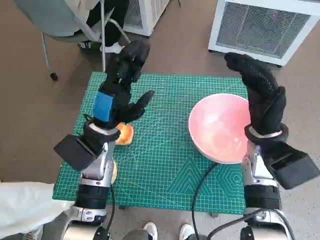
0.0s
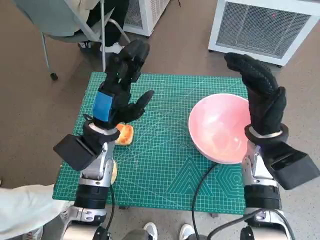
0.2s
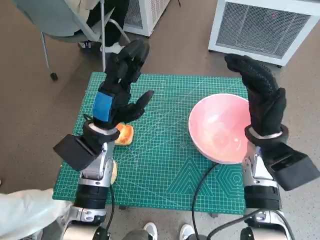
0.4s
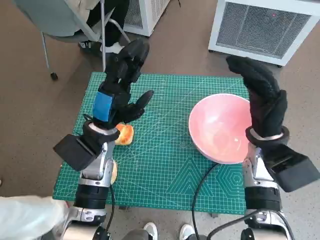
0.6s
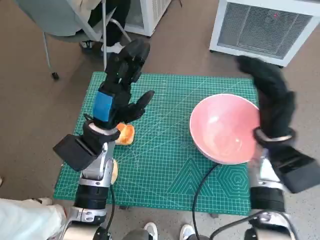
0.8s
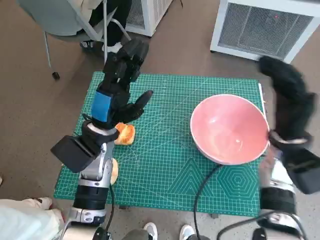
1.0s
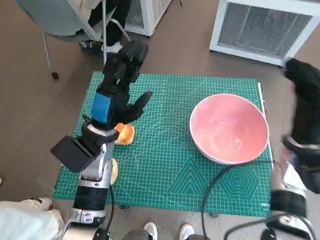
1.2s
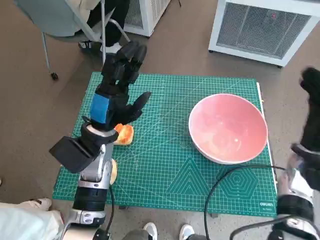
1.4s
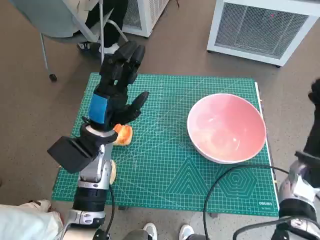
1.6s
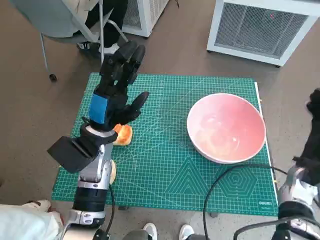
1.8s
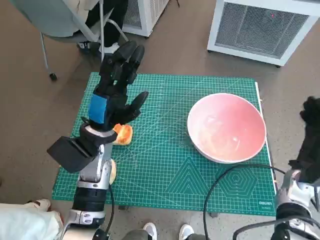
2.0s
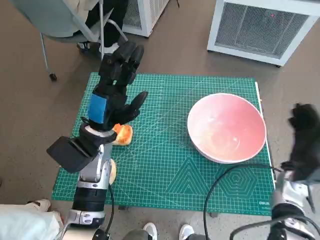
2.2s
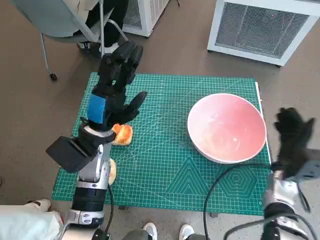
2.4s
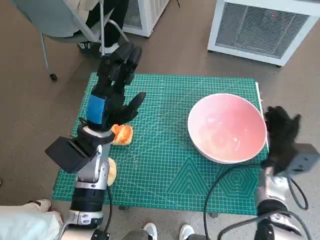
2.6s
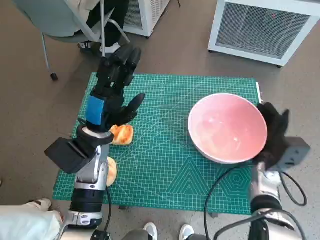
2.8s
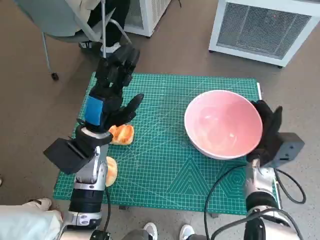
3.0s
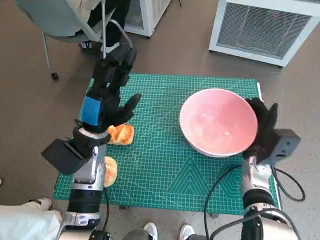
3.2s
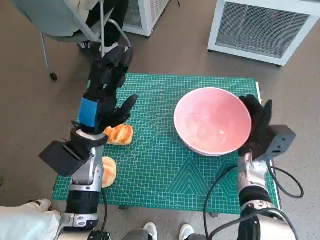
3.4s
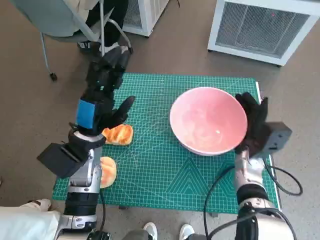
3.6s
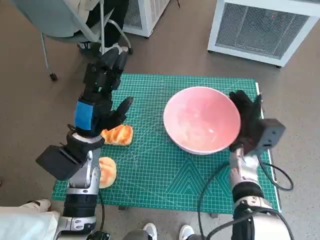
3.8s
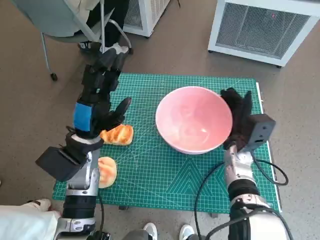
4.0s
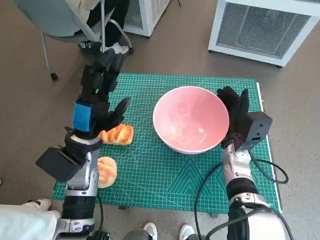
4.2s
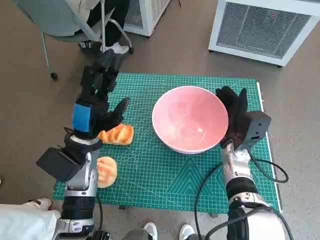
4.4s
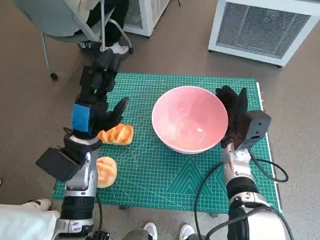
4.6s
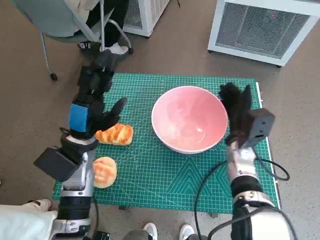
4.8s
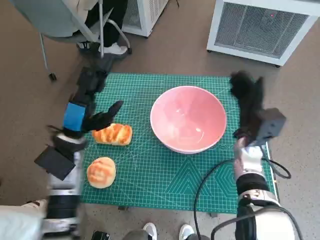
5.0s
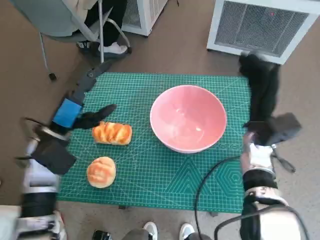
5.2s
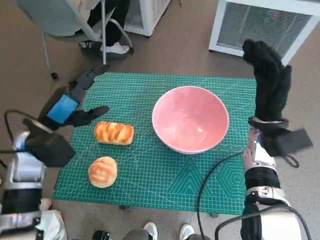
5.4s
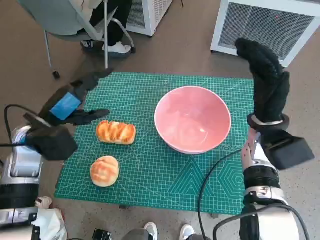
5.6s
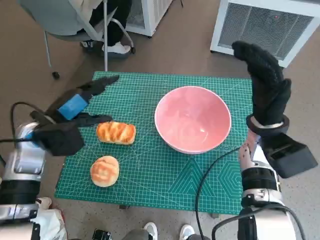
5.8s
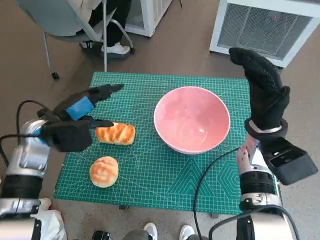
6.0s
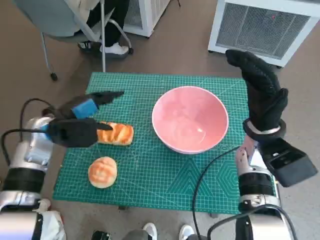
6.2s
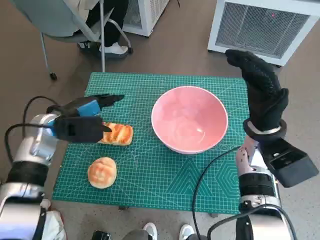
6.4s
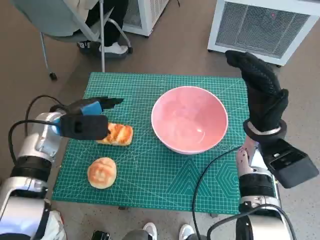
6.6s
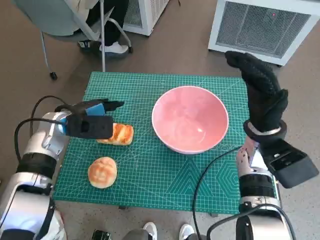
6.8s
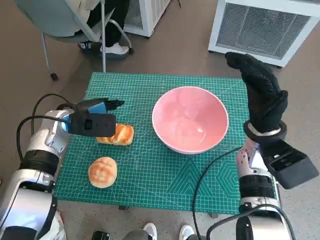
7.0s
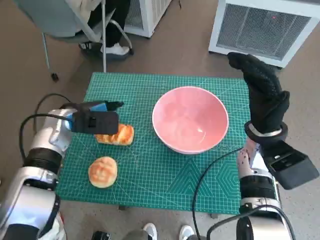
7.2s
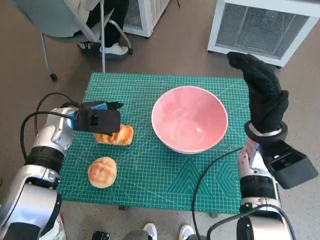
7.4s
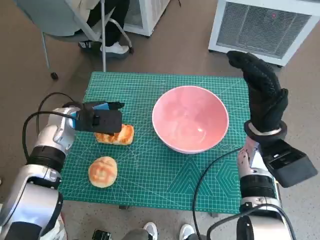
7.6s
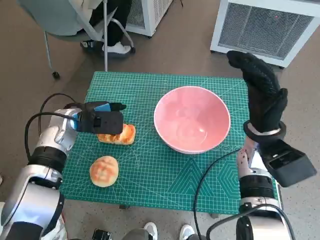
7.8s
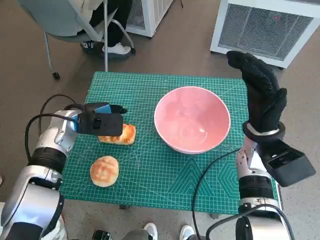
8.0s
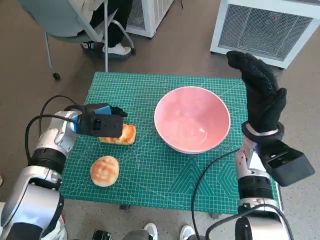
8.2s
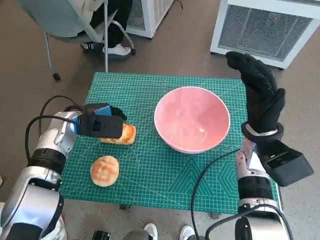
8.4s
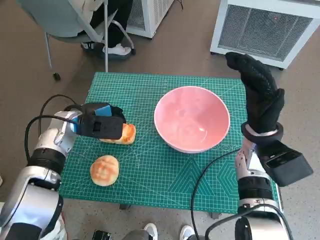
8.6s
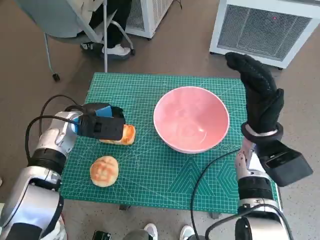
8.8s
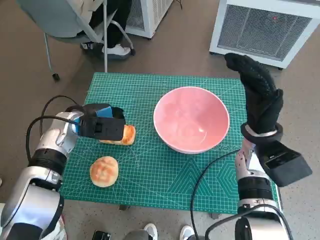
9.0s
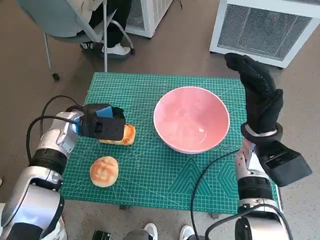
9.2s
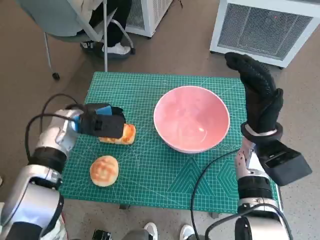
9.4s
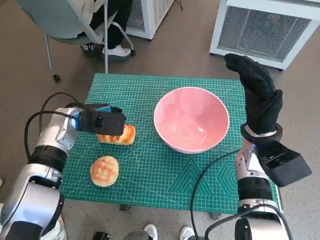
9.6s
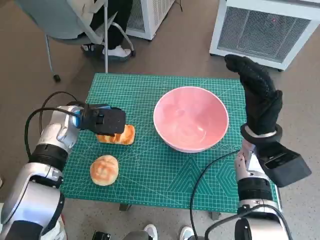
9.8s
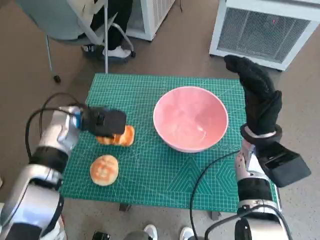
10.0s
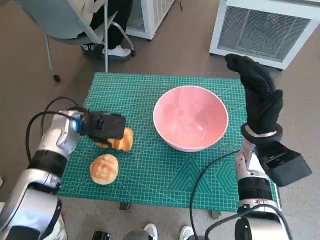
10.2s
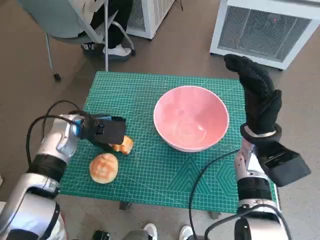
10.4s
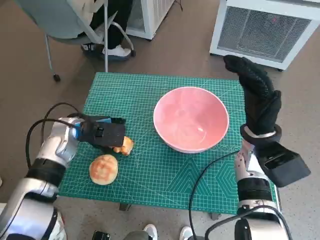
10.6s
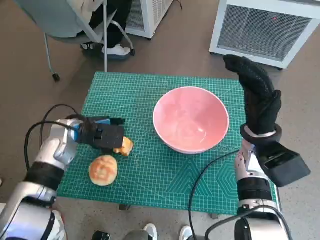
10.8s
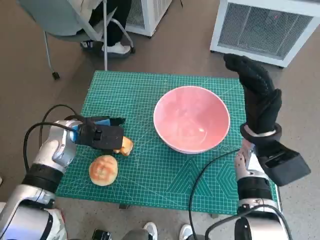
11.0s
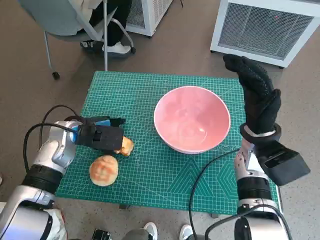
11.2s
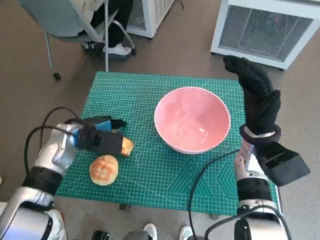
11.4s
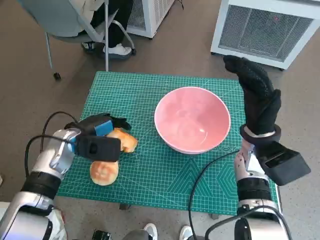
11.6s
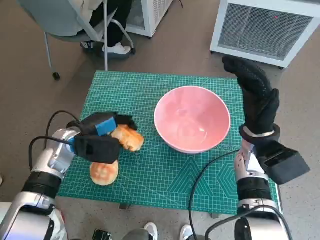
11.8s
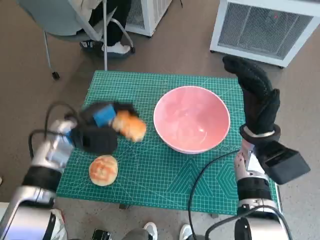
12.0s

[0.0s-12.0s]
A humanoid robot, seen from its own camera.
Task of the whole recording: Push the bowl to the center of the table and put the bread into the bowl.
Step, 0.0s to 5.0s: Move the pink bowl to the center of table with right hand.
Step, 5.2s to 9.4s: Grasp the long bread with left hand.
1.6s to 3.0s: The right hand goes approximately 10 cm to the left and downward.
3.0s to 4.4s: The right hand moves to the left, approximately 5 cm.
4.4s to 6.0s: The right hand travels upward by about 10 cm, while the left hand heads to the left, covering some 5 cm.
6.0s to 7.6s: The left hand shifts by about 5 cm.
7.6s to 9.0s: Both hands stay put.
9.0s to 10.4s: The hands stay close to where they were, moving slightly.

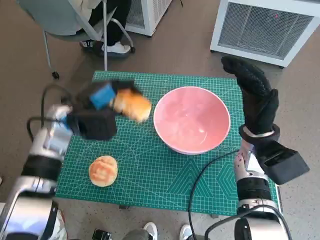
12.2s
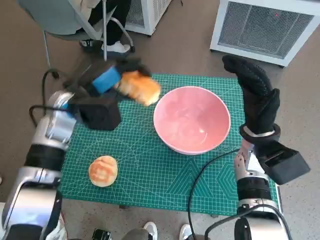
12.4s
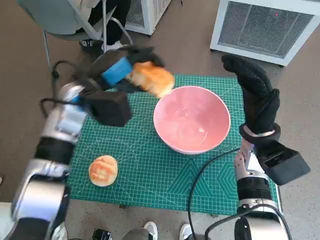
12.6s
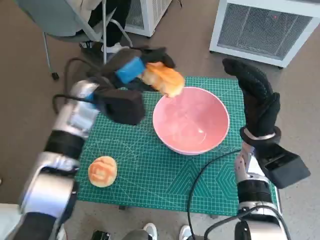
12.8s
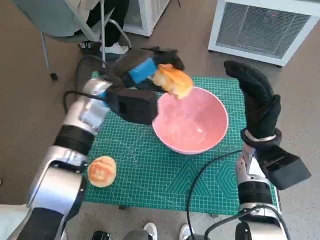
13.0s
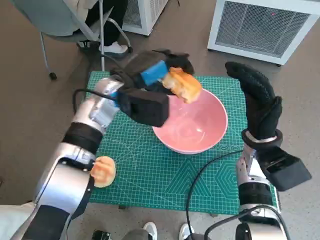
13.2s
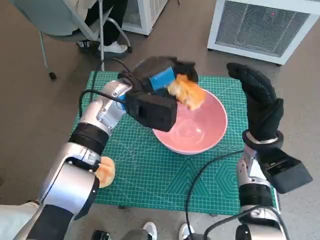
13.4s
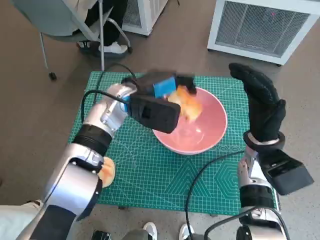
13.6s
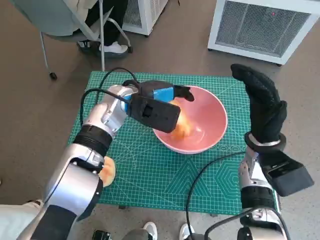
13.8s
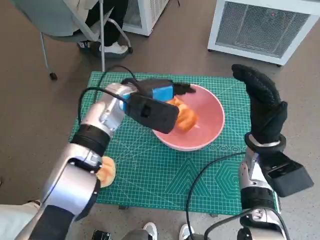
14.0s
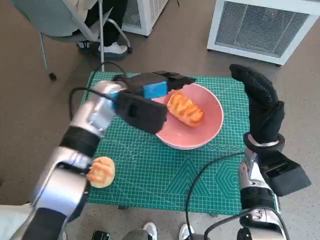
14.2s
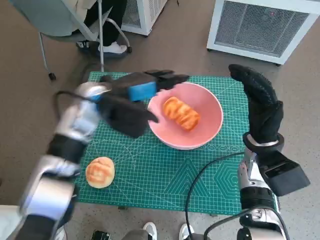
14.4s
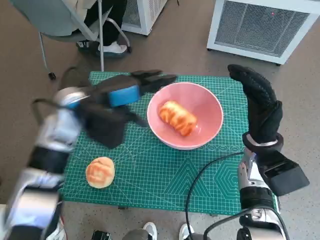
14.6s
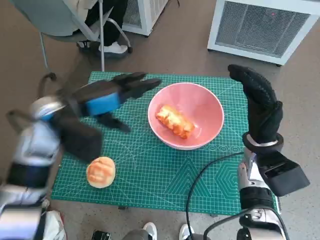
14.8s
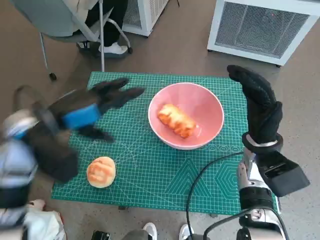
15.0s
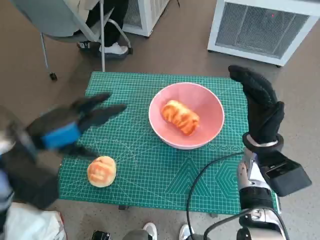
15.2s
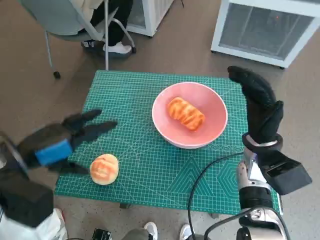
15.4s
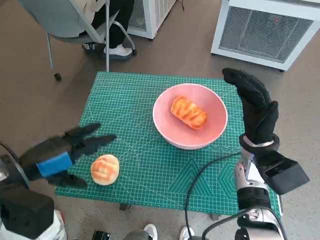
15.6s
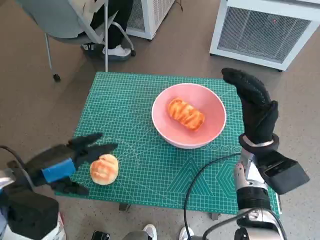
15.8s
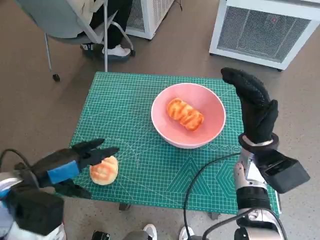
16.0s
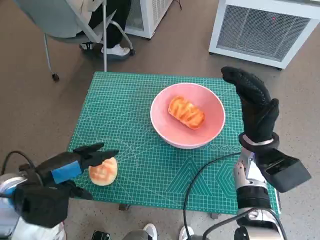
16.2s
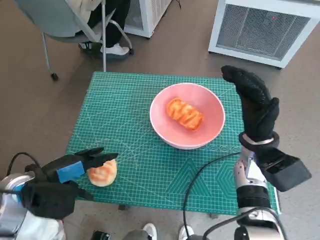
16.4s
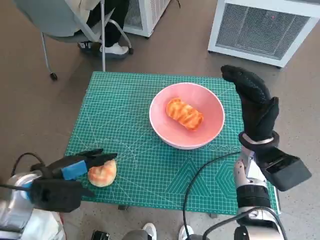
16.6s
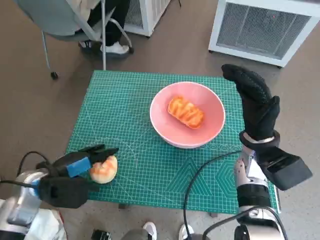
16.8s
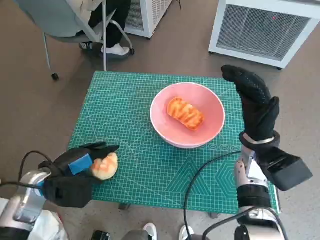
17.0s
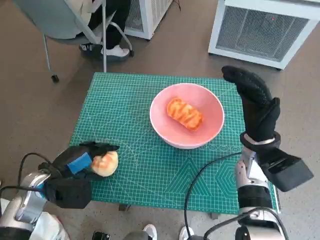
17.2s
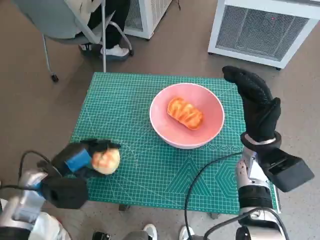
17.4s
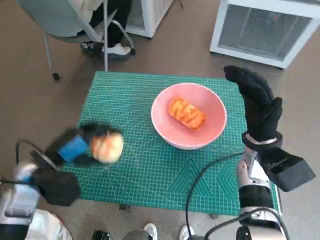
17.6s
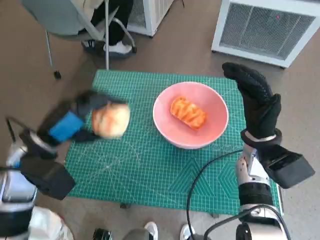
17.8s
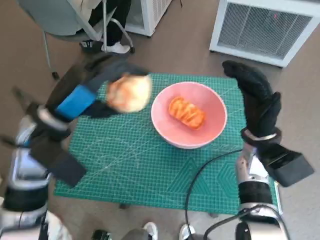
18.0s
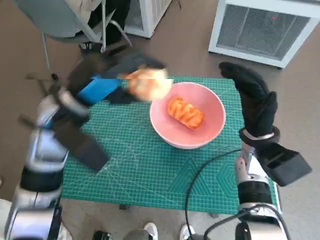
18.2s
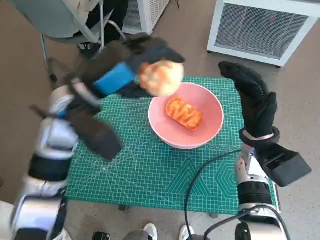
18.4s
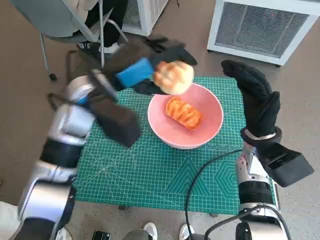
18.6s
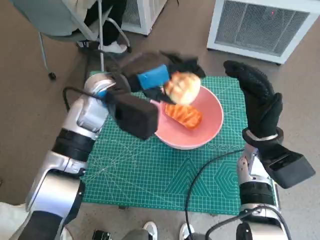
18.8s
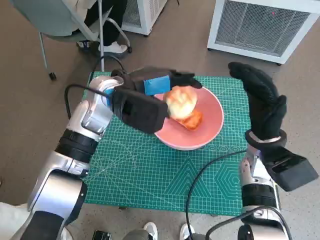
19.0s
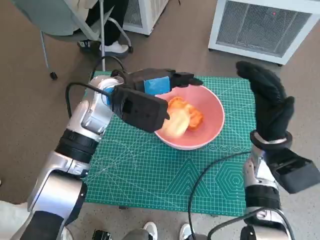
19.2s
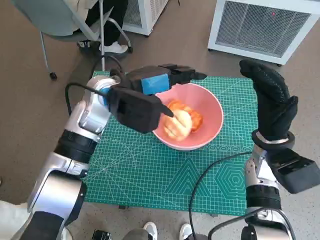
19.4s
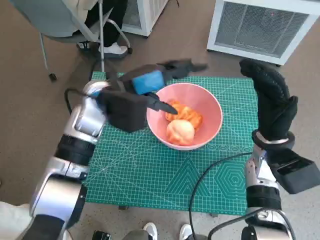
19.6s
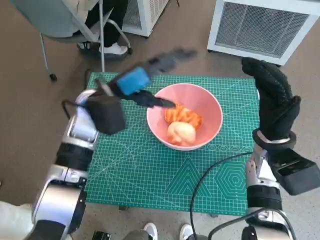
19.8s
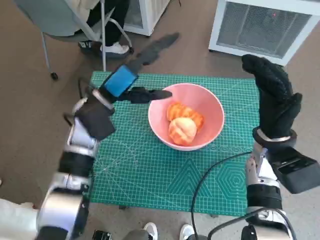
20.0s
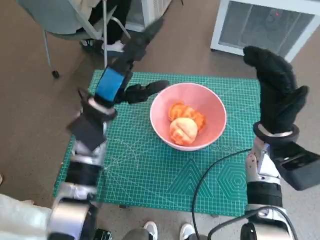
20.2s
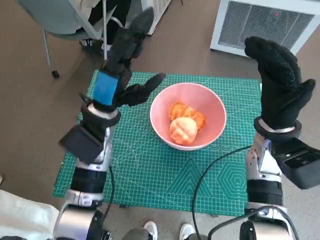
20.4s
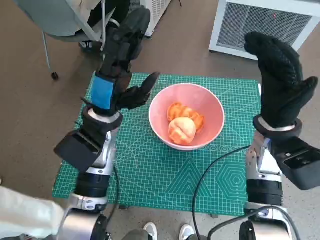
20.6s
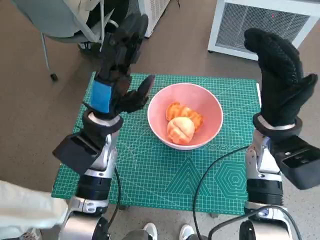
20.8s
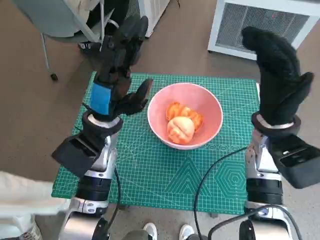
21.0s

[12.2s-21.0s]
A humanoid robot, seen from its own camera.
Task of the whole recording: Push the bowl to the center of the table and put the bread into the bowl.
Step, 12.2s to 14.4s: Place the long bread in pink bowl with left hand.
Step, 14.6s to 17.2s: Grasp the round bread with left hand.
Step, 17.4s to 19.6s: Place the round bread in pink bowl with left hand.
12.2s to 13.6s: The left hand heads to the right, covering about 10 cm.
13.6s to 15.2s: The left hand goes approximately 20 cm to the left and backward.
15.2s to 16.6s: The left hand goes about 10 cm downward.
16.6s to 18.0s: The left hand moves upward and to the right, about 10 cm.
18.0s to 19.6s: The left hand moves to the right and forward, about 15 cm.
19.6s to 21.0s: The right hand travels upward by roughly 5 cm, while the left hand travels downward and backward by approximately 5 cm.

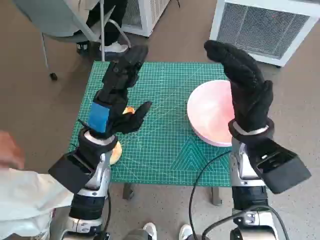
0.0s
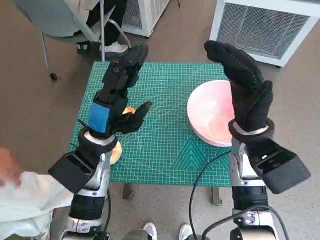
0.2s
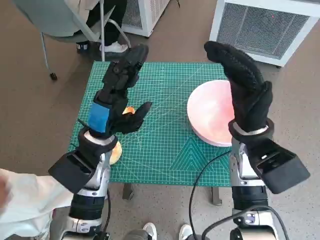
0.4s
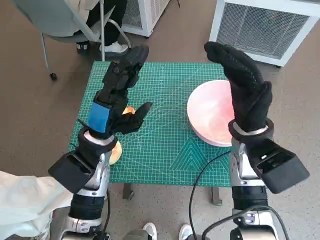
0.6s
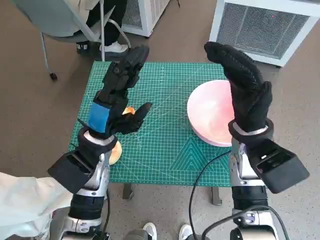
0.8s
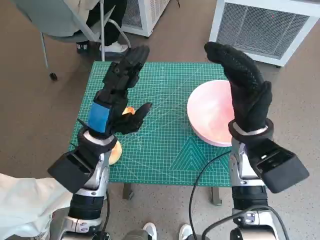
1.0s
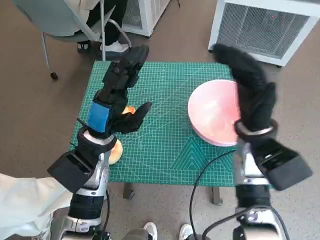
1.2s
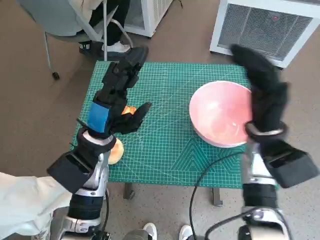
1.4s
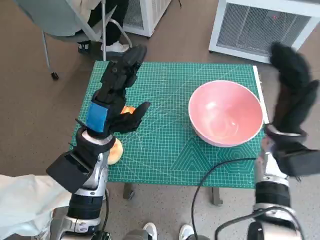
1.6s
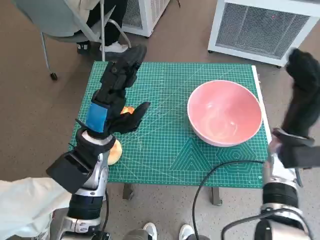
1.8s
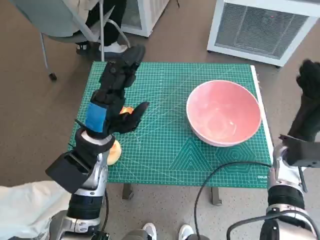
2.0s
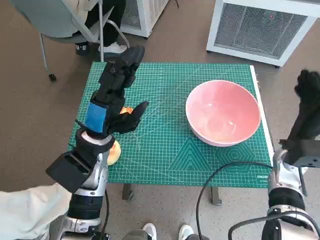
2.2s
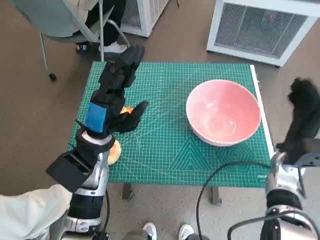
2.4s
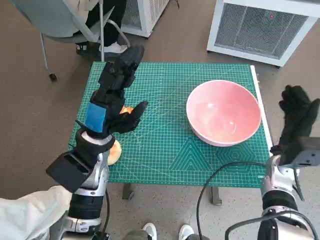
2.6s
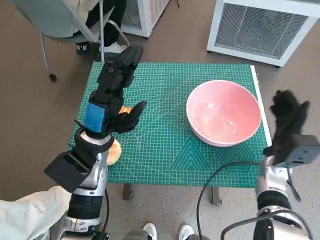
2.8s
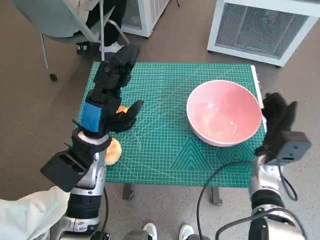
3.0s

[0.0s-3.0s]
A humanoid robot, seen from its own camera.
Task of the whole recording: Push the bowl to the center of the table and put the bread into the bowl.
1.6s to 3.0s: The right hand goes roughly 10 cm downward.
